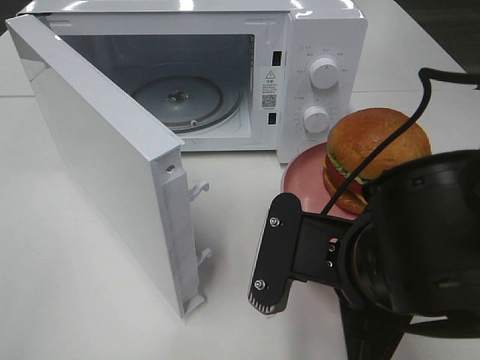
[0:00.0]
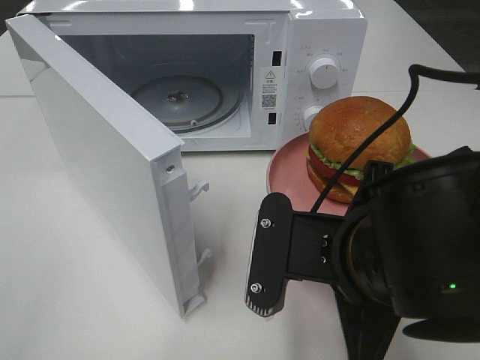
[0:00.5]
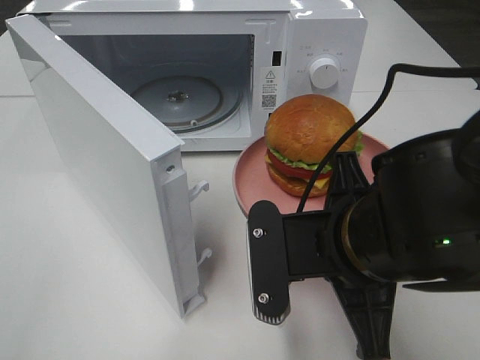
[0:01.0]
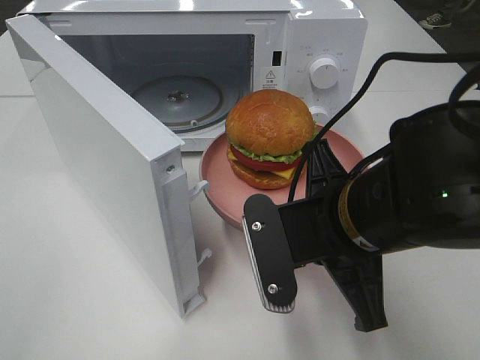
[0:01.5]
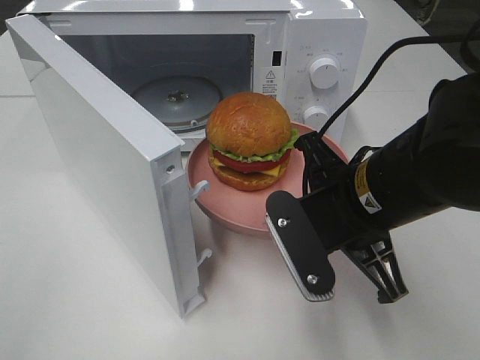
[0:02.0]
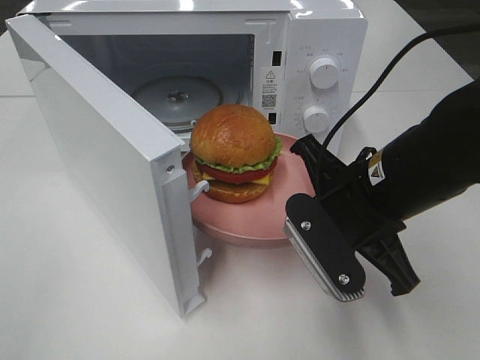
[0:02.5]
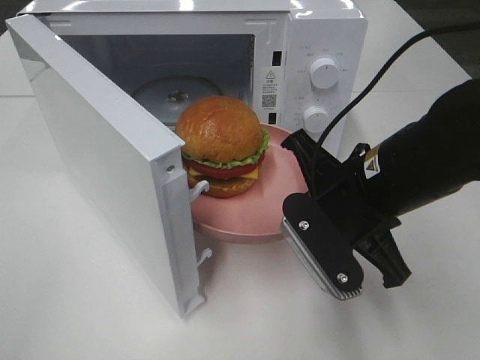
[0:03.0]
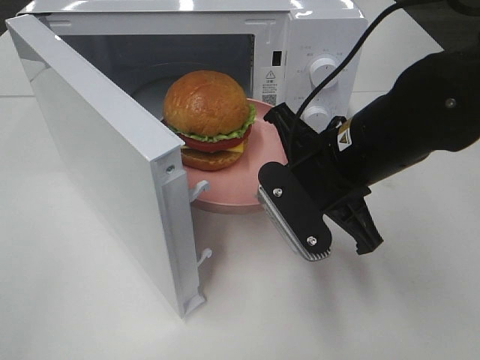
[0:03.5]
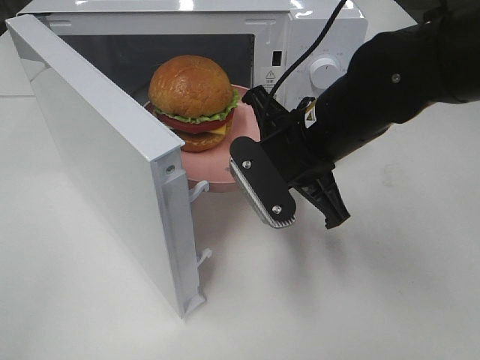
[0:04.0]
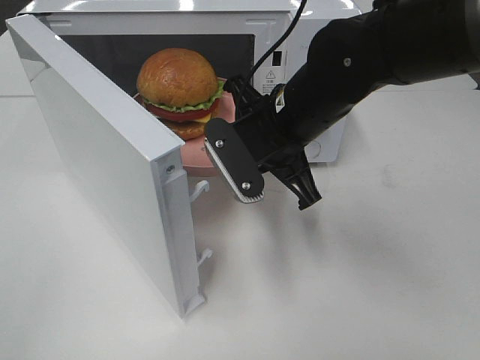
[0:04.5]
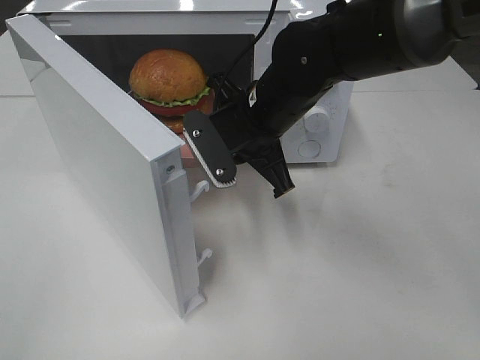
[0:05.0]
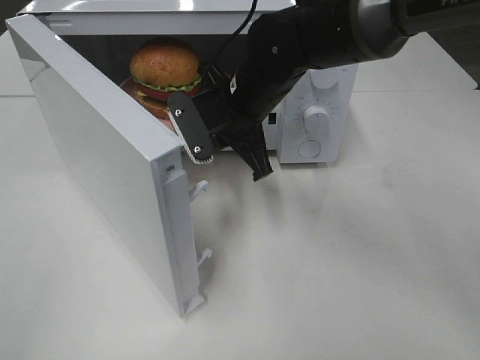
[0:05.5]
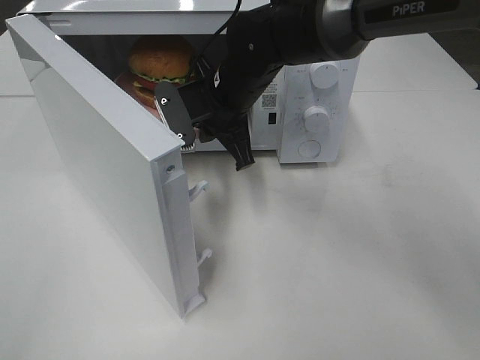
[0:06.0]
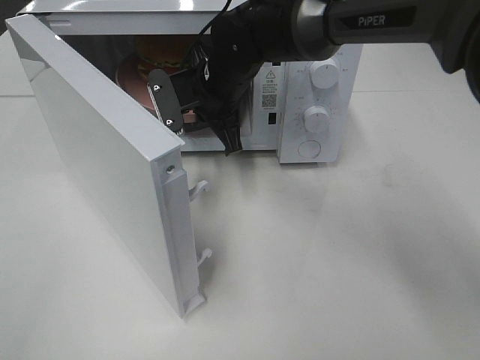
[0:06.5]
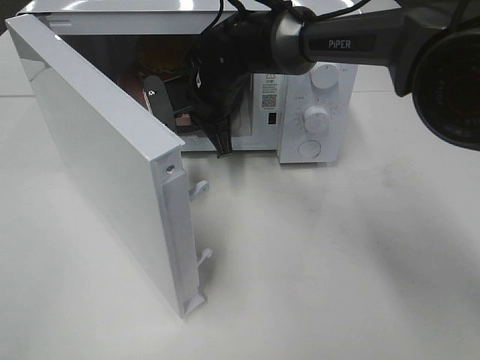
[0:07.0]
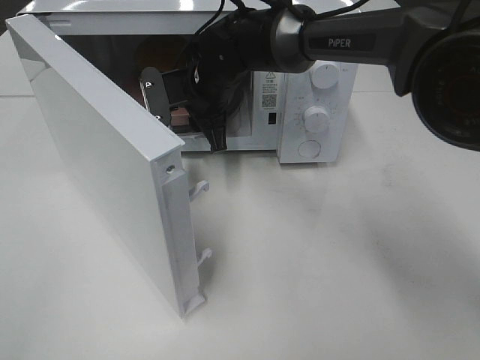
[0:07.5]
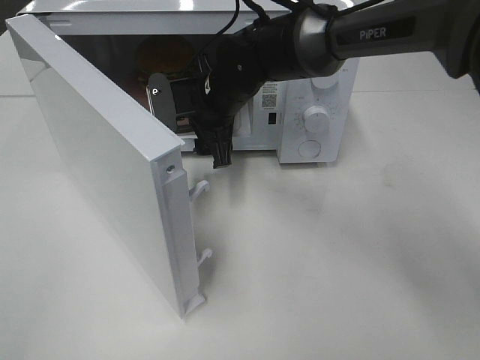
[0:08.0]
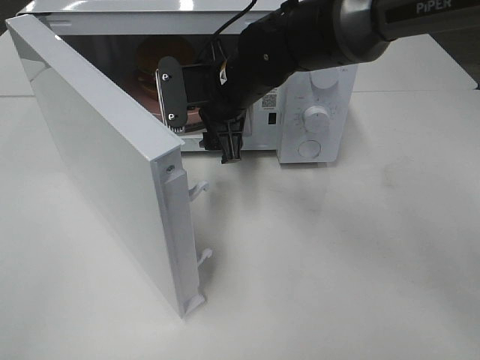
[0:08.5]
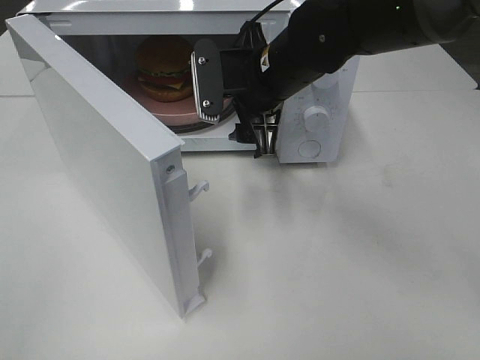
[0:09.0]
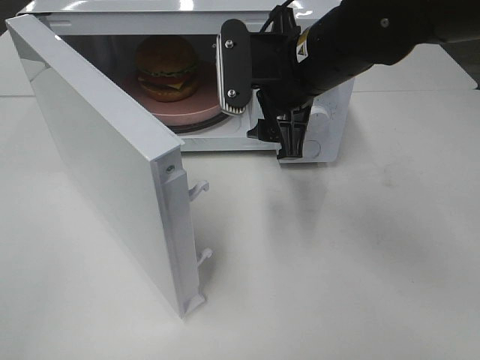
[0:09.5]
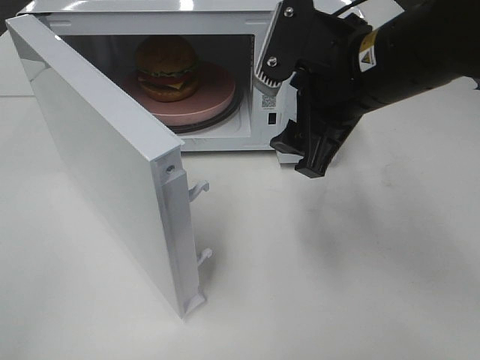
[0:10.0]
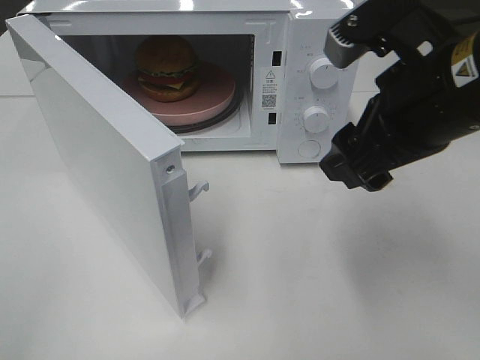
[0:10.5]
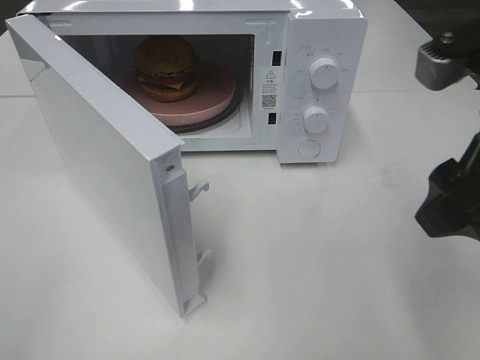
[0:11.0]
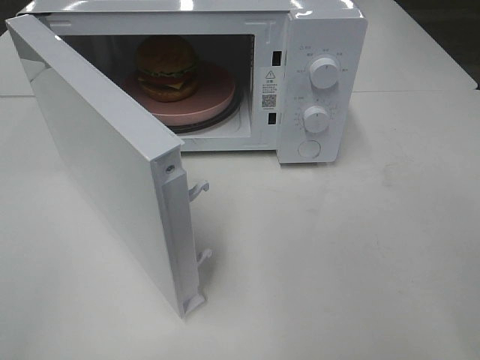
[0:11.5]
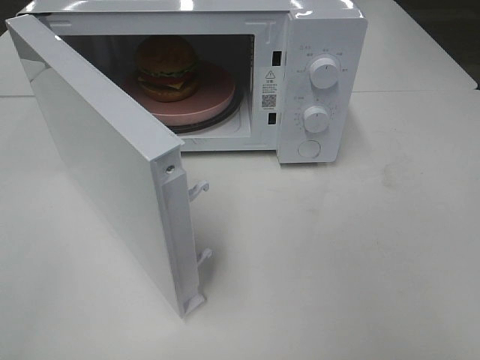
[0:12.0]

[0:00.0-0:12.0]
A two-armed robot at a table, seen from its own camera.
Task of the whole recording: Heat the burger.
Step, 0:00.0 to 0:07.0: Right hand: place the plate in the microwave.
0:00.0 to 0:02.0: The right gripper shifts about 5 cm forward.
0:02.0 to 0:04.0: The right gripper travels forward by approximately 5 cm.
0:04.0 to 0:06.0: The right gripper goes roughly 15 cm forward and to the left.
0:06.0 to 0:08.0: The right gripper opens its fingers.
0:08.0 to 0:10.0: The right gripper shifts some 20 cm backward, to the right and upward.
0:10.0 to 0:12.0: The right gripper is displaced backward and to the right by some 25 cm.

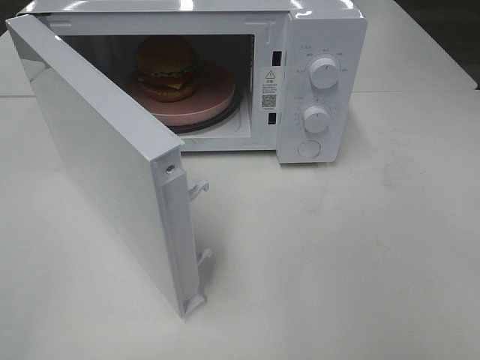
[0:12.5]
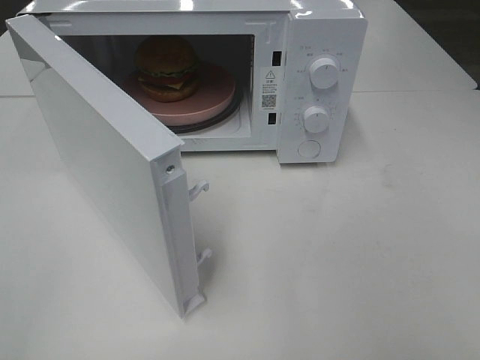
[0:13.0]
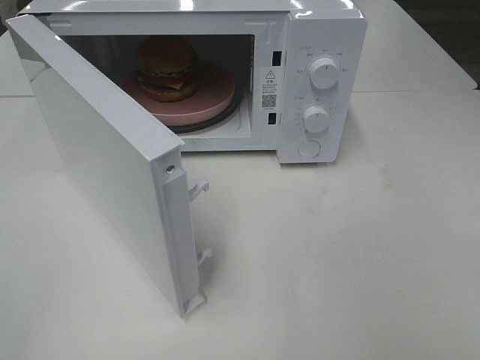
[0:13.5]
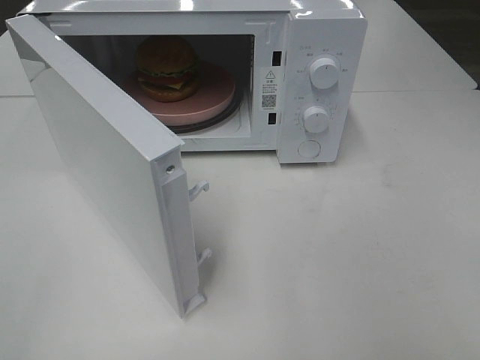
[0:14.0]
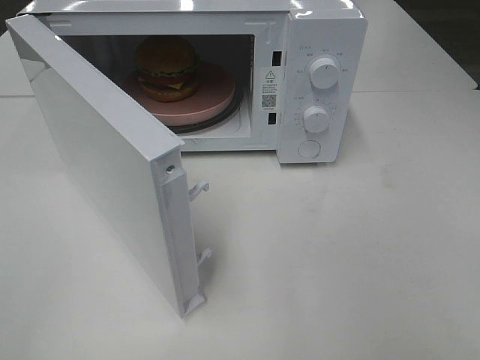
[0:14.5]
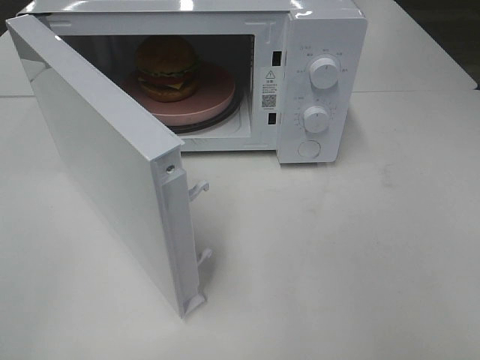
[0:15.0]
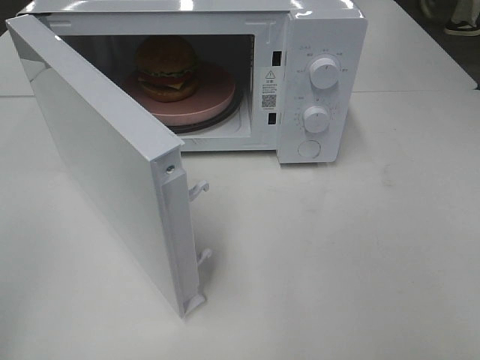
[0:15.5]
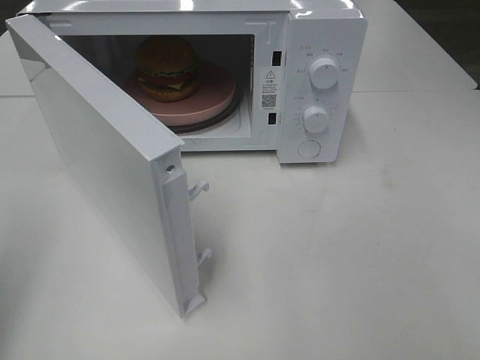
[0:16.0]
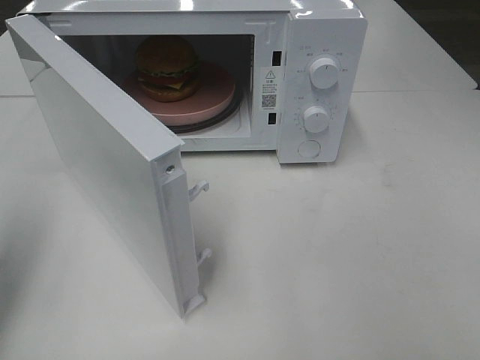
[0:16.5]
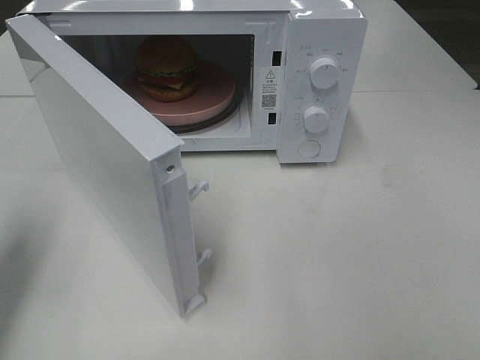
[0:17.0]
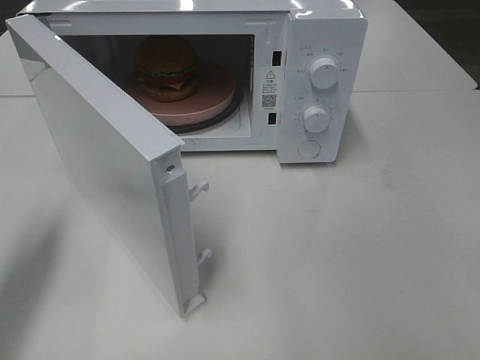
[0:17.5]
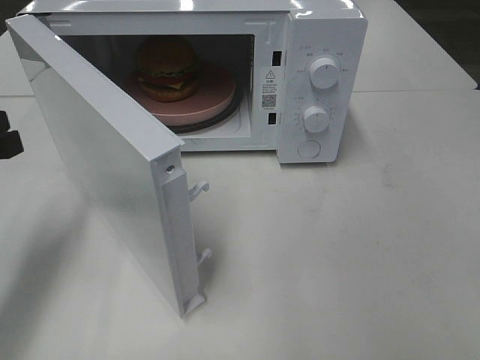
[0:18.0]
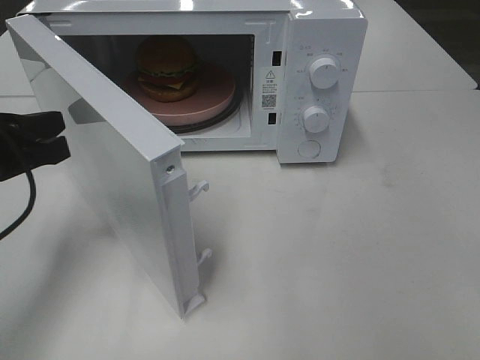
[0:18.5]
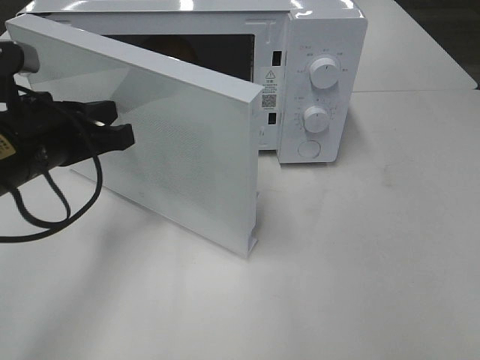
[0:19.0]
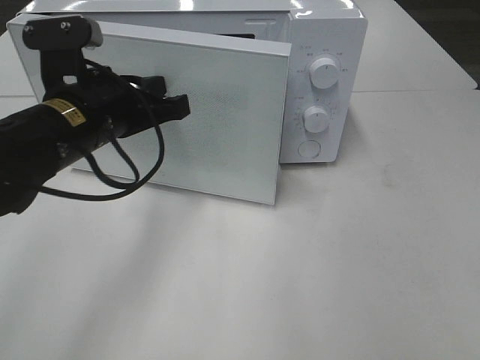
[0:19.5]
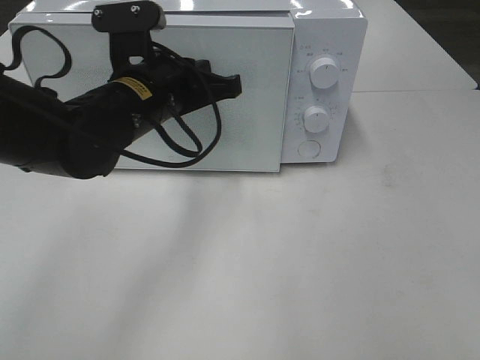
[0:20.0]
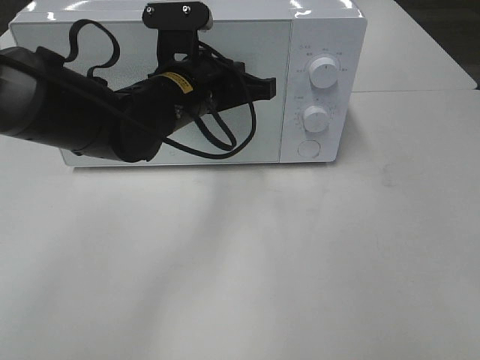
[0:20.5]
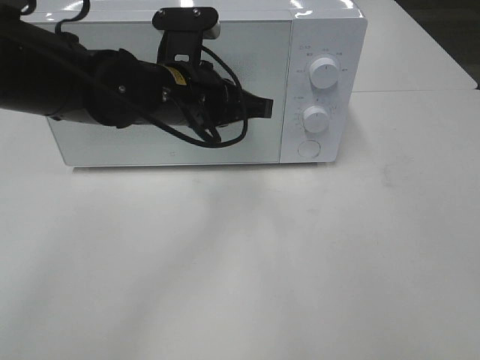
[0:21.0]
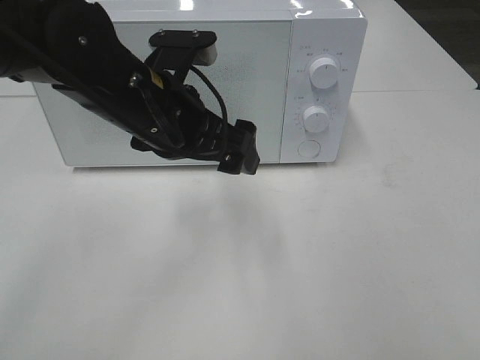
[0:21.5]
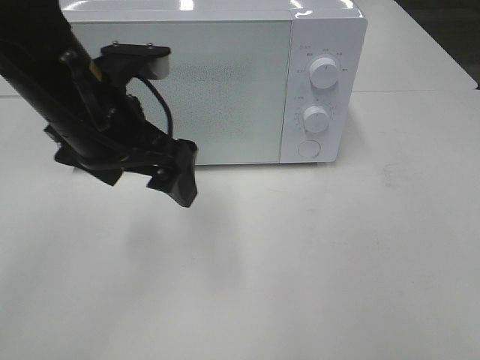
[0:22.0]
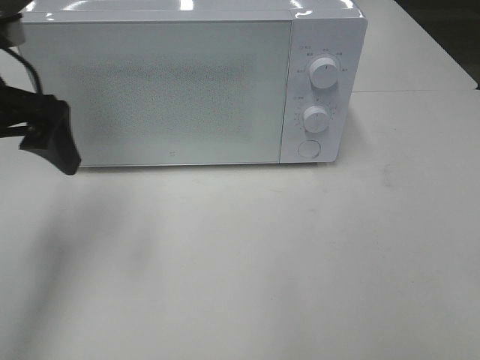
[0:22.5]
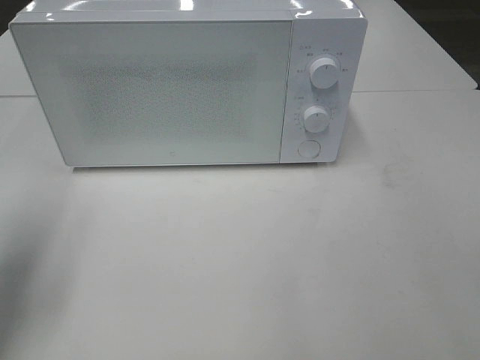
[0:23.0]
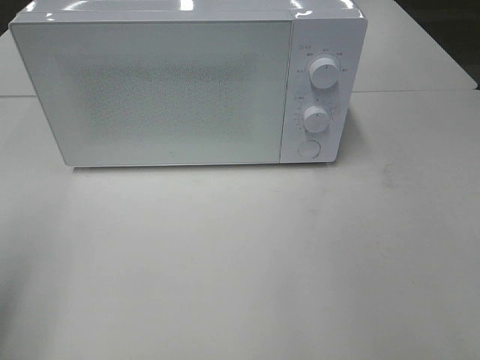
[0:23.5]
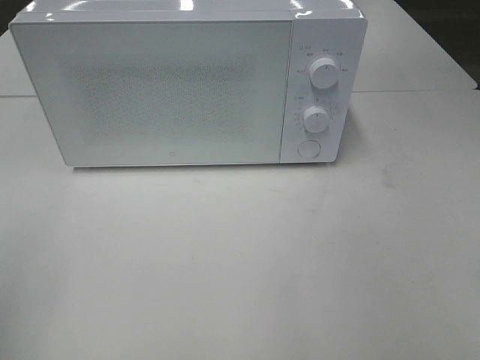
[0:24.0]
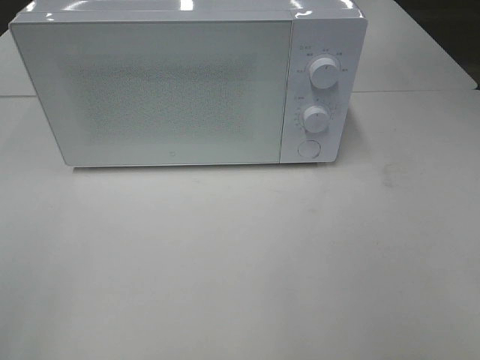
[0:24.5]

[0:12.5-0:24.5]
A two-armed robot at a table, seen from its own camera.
Task of the whole recording: Heat the burger.
Step, 0:12.5 to 0:20.5: Left hand: close the microwave door.
0:14.5 to 0:16.5: The left gripper shifts roughly 20 cm forward, and closes up.
0:16.5 to 0:18.5: The left gripper travels to the right and downward by approximately 10 cm.
0:18.5 to 0:20.5: The left gripper shifts some 20 cm to the right and forward.
0:20.5 to 0:22.5: The left gripper goes roughly 20 cm to the left and upward, and opens its fingers.
0:22.5 to 0:24.5: The left gripper shifts approximately 25 cm backward.

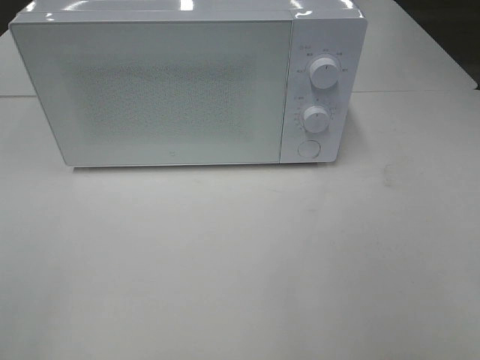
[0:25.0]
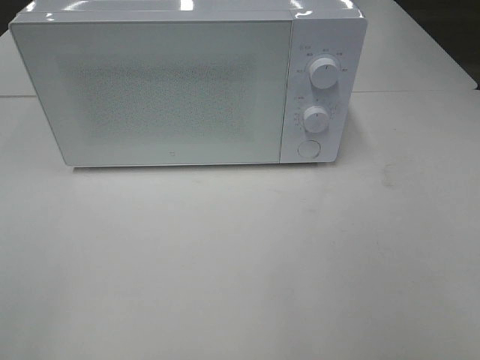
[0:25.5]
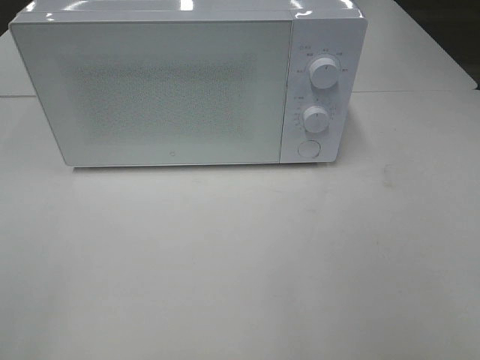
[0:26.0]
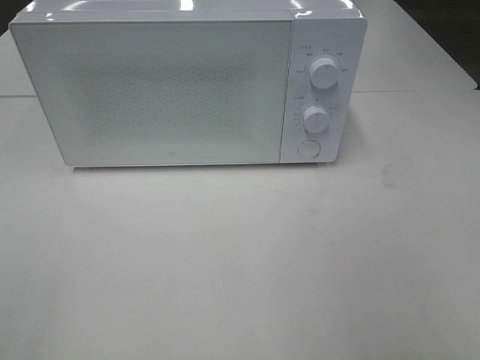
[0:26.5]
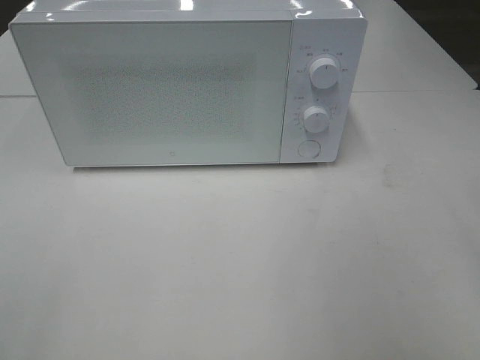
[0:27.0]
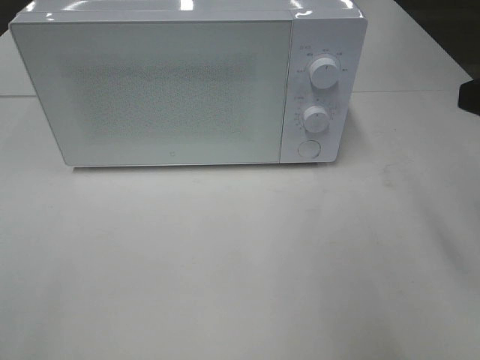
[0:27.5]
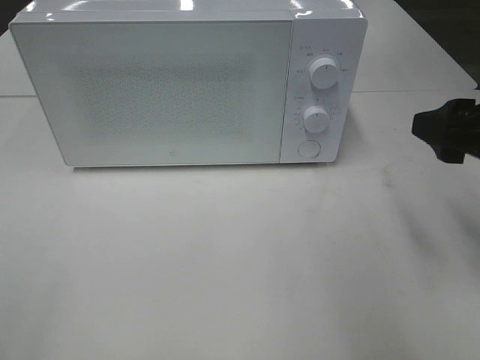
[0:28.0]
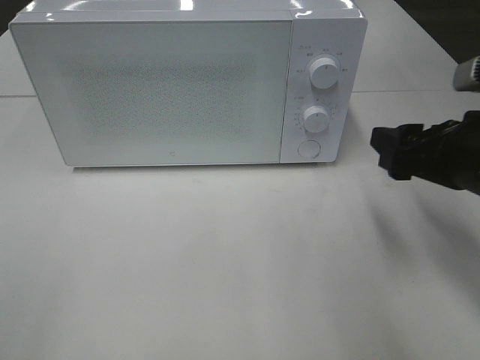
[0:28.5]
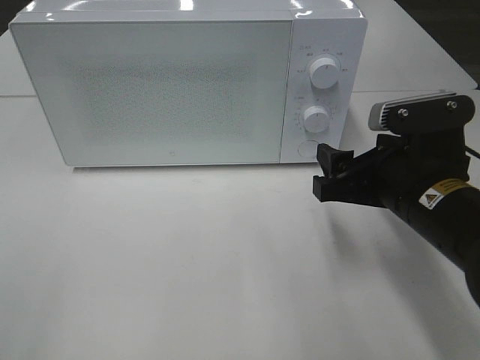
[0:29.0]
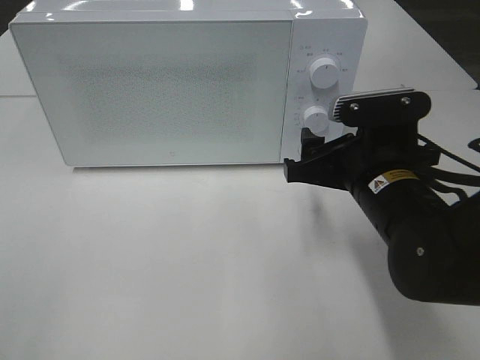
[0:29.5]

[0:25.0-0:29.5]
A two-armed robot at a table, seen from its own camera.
Task of the whole recording: Heat the burger.
0:27.0 to 0:29.5: The right gripper shifts approximately 25 cm downward, forward and to the left.
